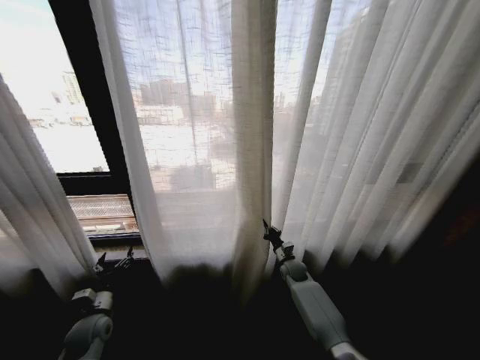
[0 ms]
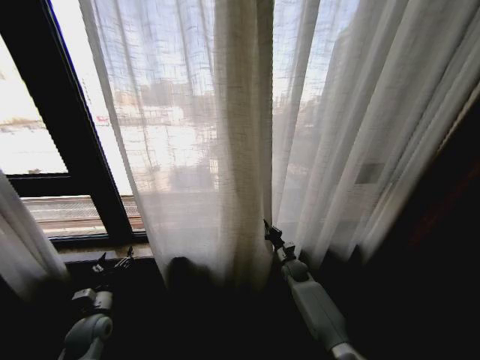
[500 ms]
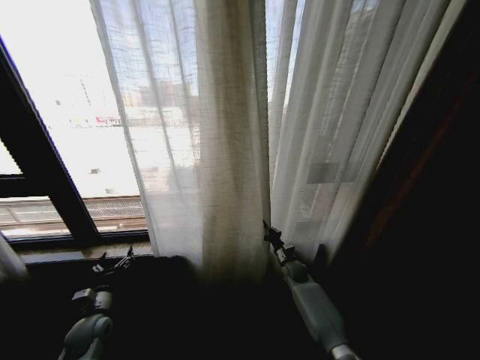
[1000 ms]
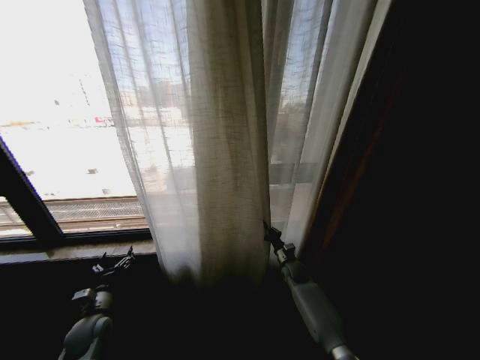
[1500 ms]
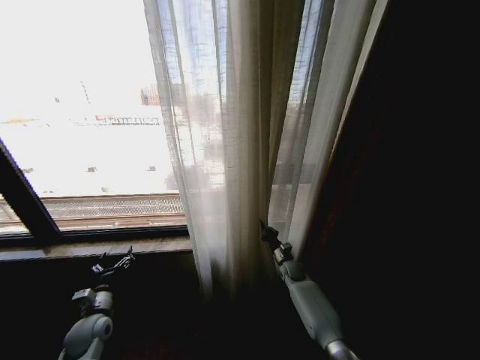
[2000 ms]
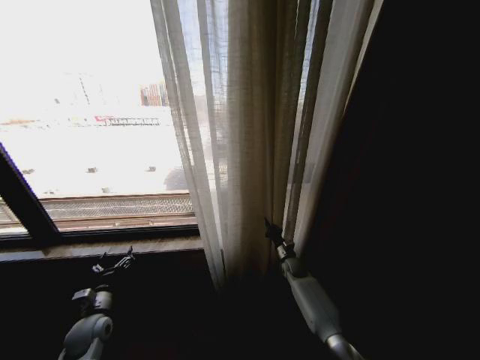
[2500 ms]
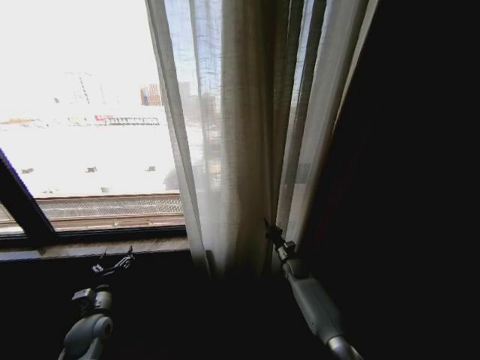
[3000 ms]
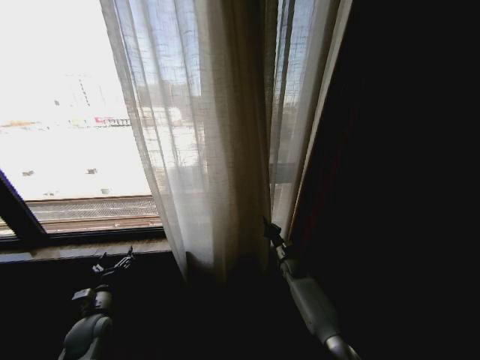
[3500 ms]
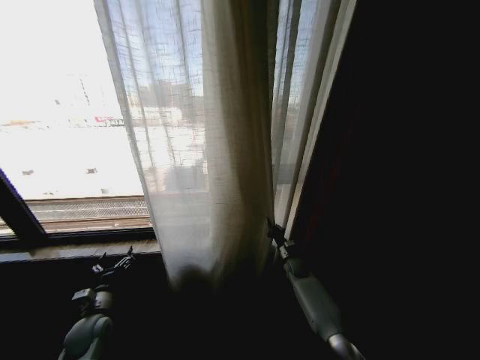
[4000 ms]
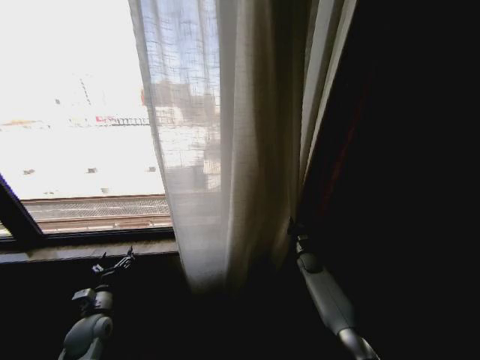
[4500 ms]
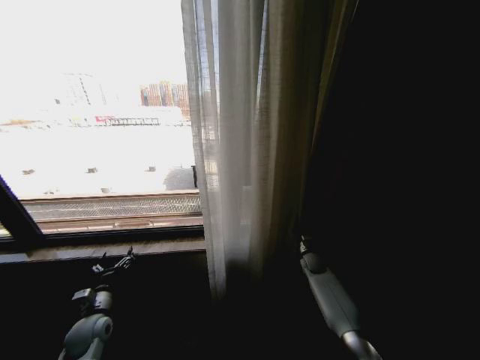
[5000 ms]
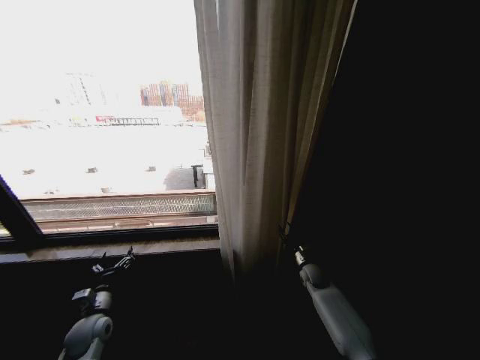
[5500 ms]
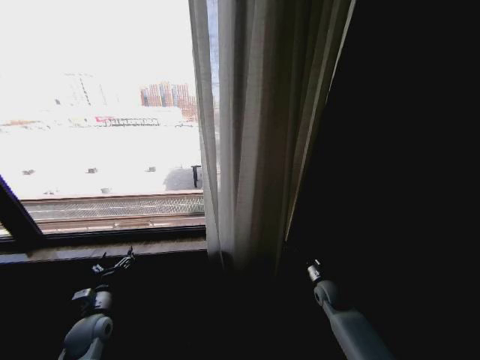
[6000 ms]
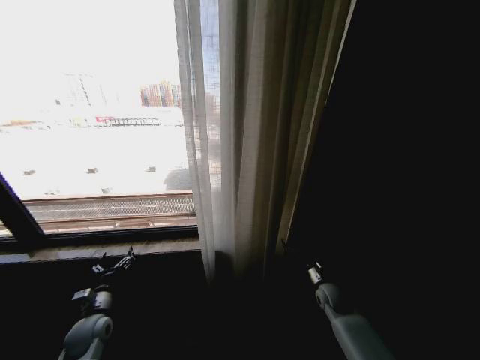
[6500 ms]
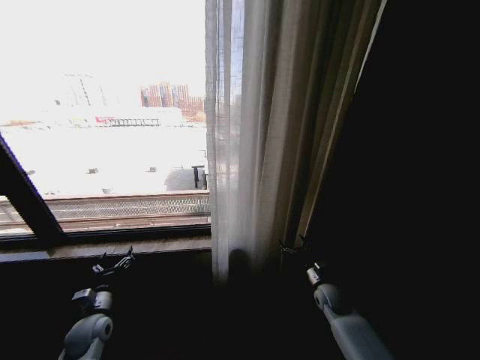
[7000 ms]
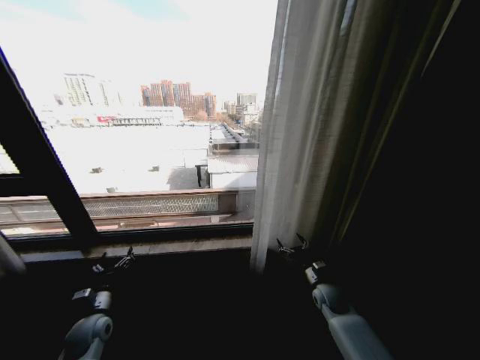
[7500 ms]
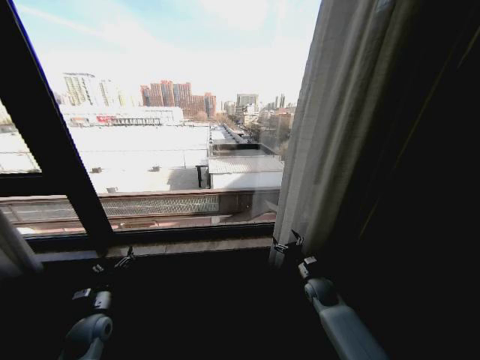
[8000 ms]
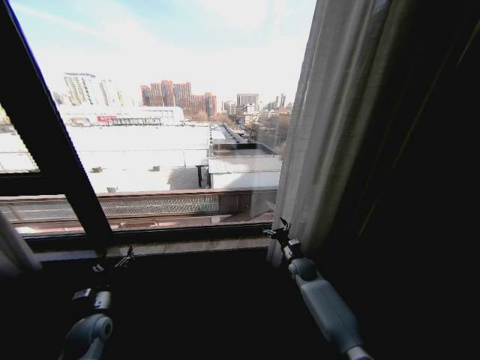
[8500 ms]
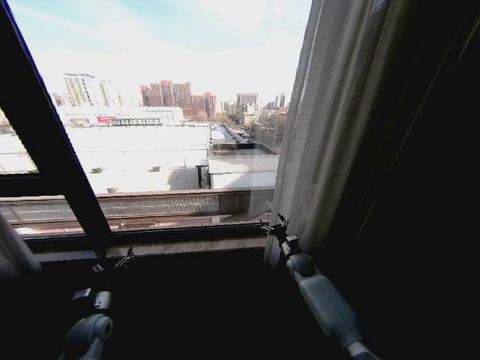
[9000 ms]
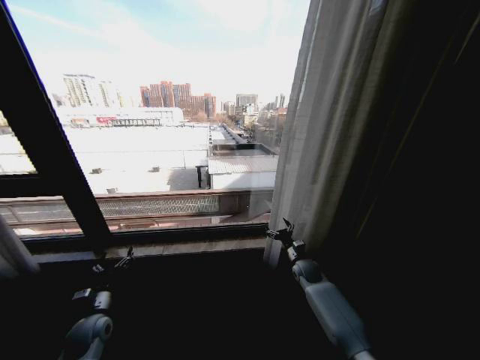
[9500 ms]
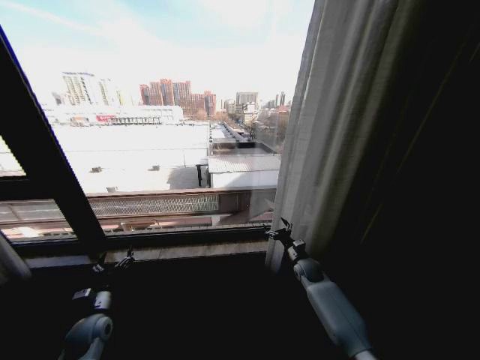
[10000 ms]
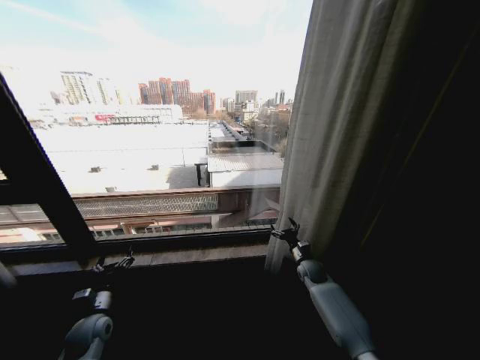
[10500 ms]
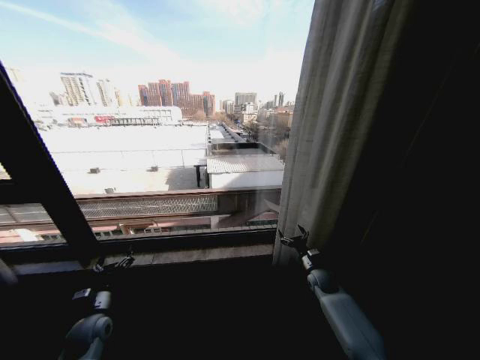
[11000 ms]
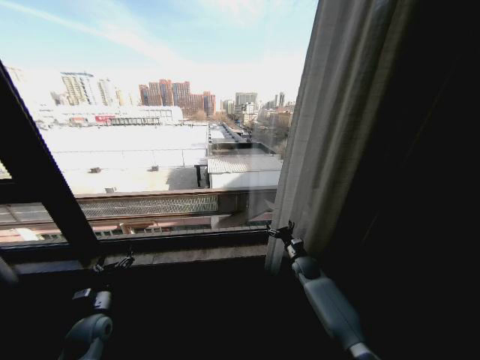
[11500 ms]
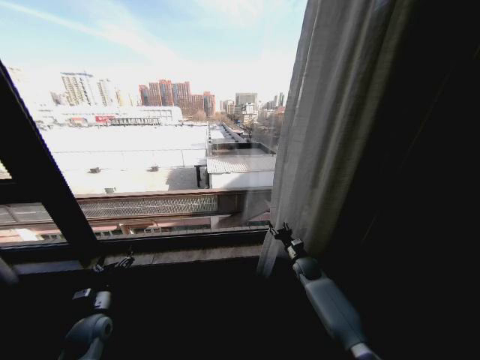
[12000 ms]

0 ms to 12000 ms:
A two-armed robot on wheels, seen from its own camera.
Task of the whole recording: Open the curtains by pulling them apart, changing their state from closed to fully open.
4000 ms to 6000 ms: The right gripper moves backward and to the right, approximately 15 cm, and opens its fingers.
8000 ms to 10000 ms: The right gripper travels forward by roughly 5 cm.
10000 ms to 12000 ms: The right gripper closes its fingers.

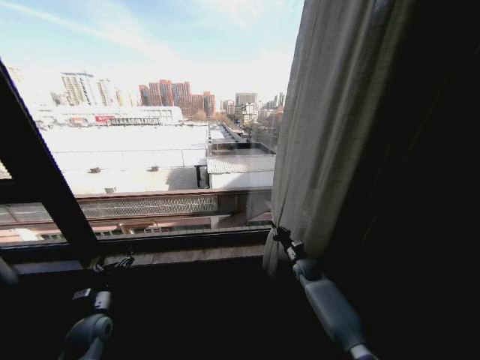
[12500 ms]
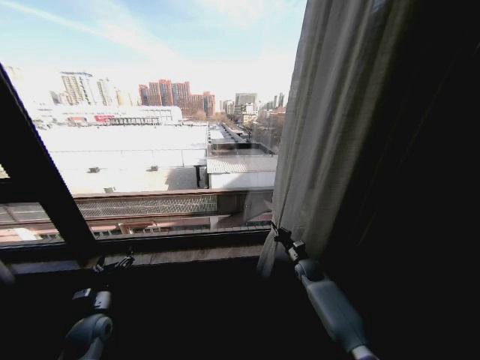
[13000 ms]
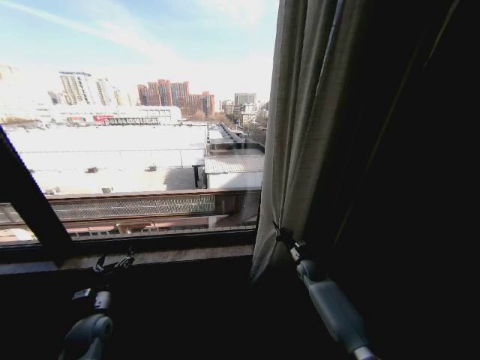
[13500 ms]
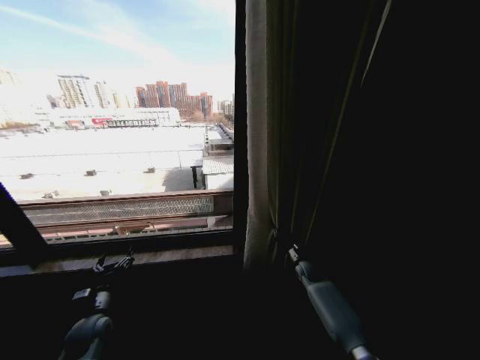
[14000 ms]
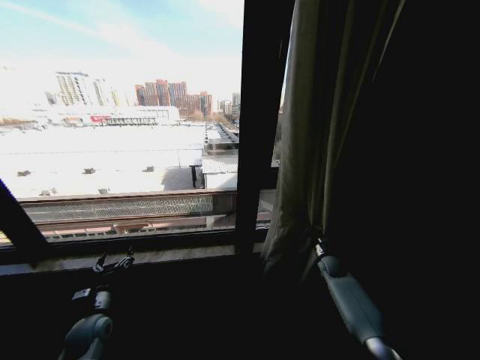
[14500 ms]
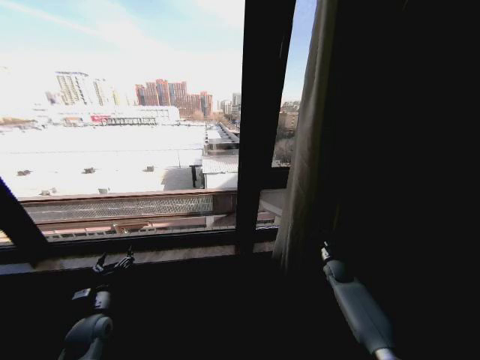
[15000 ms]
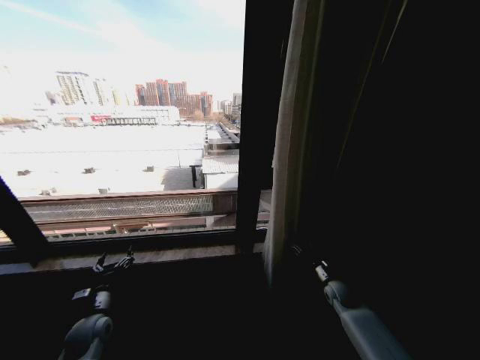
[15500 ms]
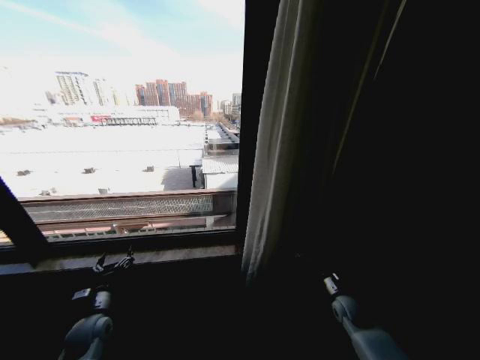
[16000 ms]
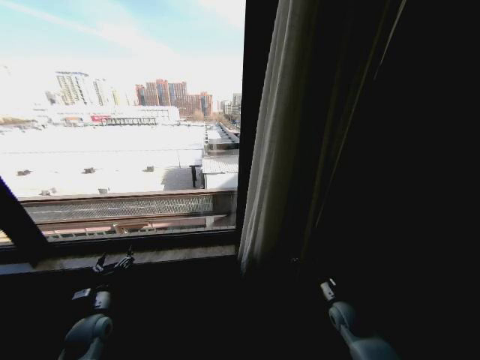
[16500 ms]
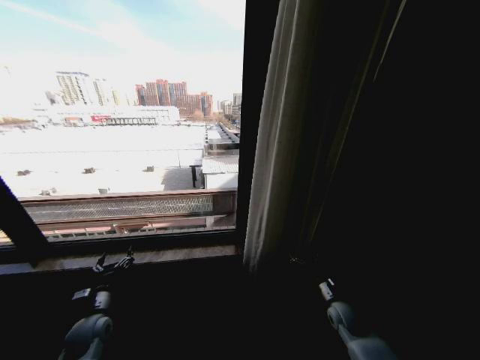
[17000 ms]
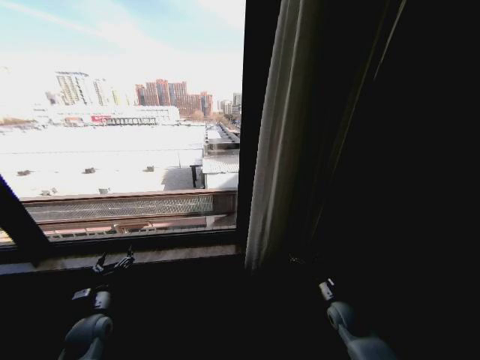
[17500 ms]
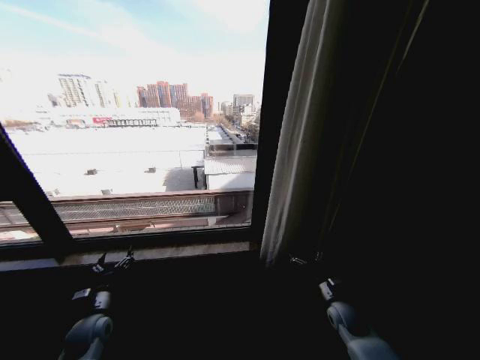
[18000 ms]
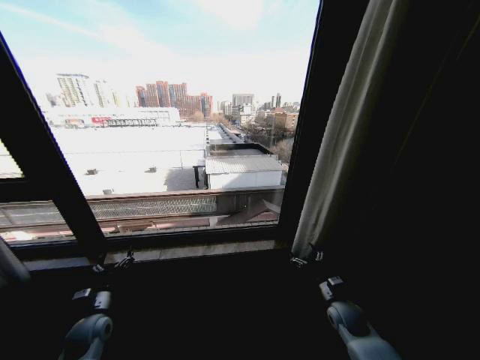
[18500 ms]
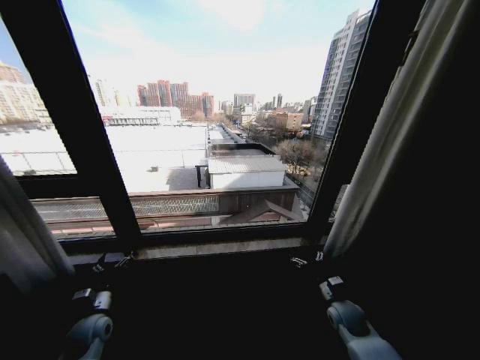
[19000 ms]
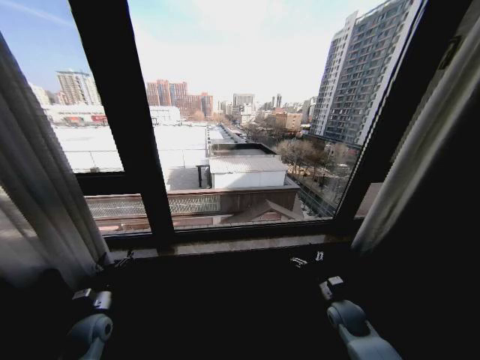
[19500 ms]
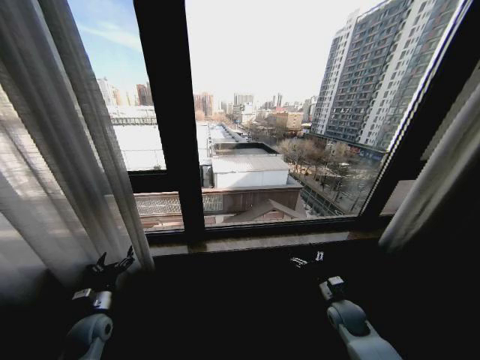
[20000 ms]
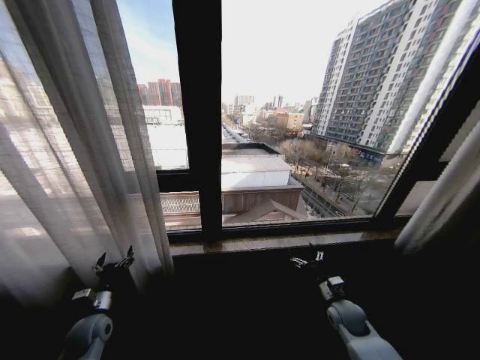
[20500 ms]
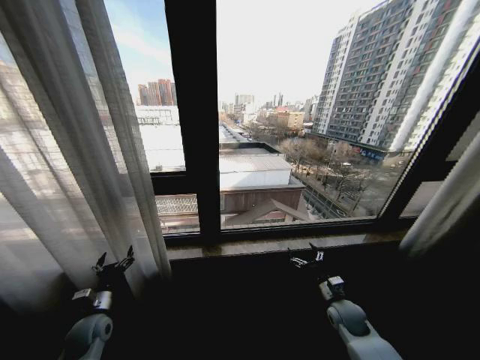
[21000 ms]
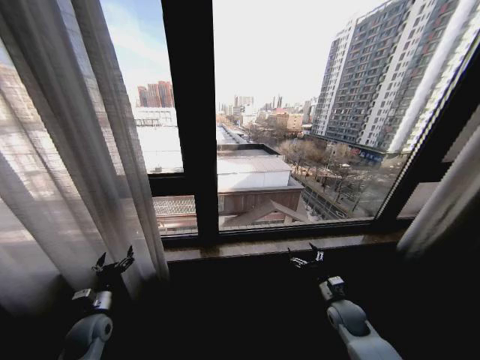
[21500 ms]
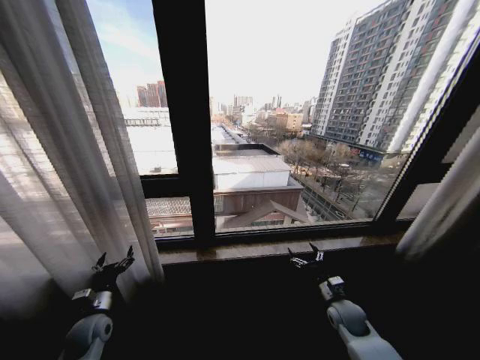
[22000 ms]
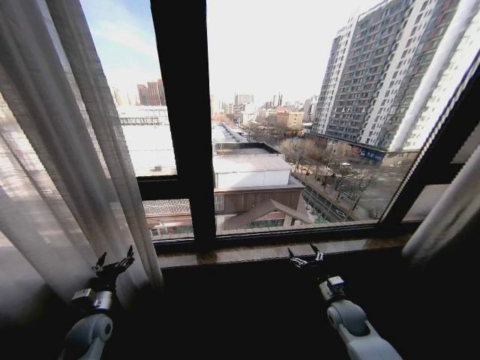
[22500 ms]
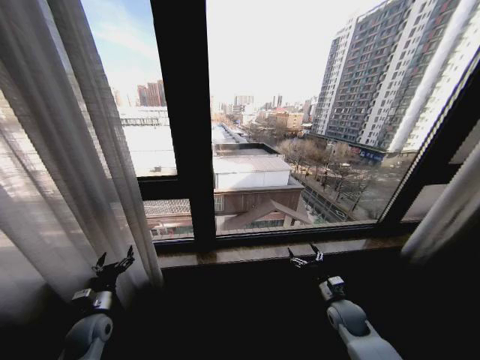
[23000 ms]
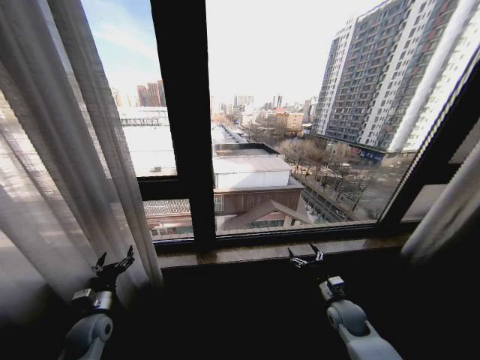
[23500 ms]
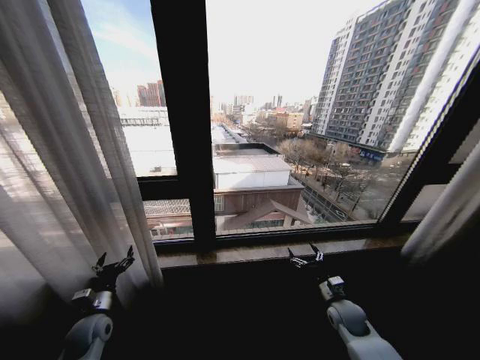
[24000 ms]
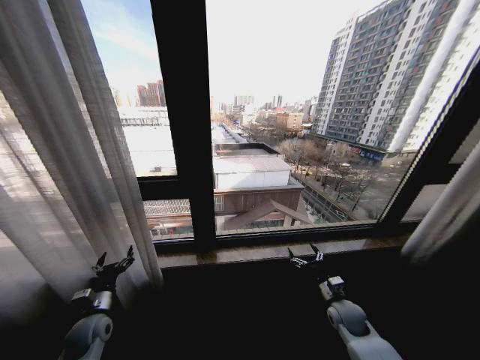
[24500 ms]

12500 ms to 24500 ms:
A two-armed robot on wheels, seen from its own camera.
Task of the whole recording: Open the curtains by pulling them apart, changing their state from closed to fully open.
12500 ms to 14500 ms: The right gripper shifts some 10 cm to the right.
14500 ms to 16500 ms: The right gripper is displaced backward by about 15 cm, and opens.
22500 ms to 24500 ms: Both grippers stay put.

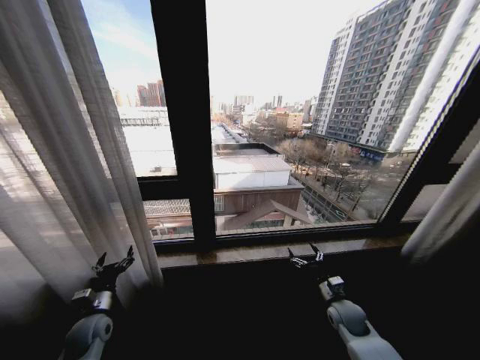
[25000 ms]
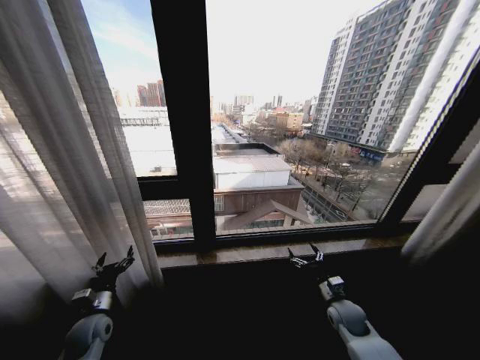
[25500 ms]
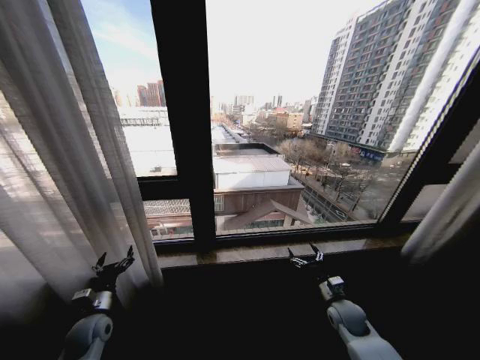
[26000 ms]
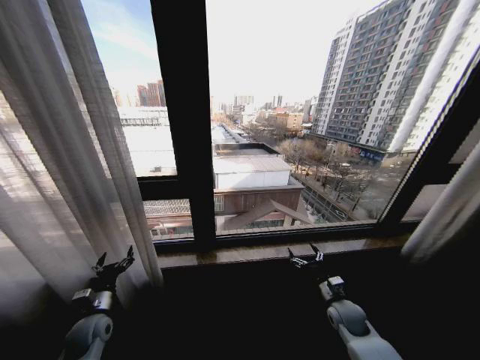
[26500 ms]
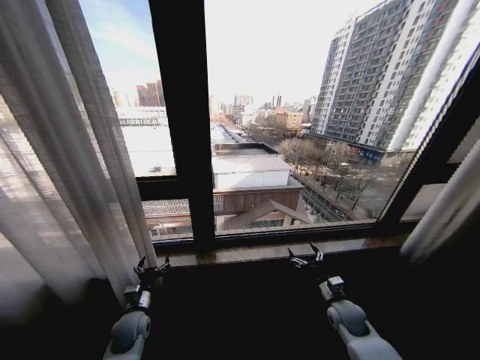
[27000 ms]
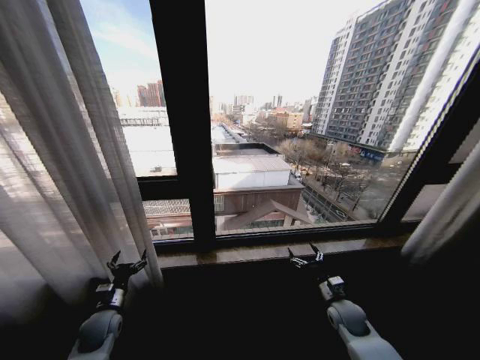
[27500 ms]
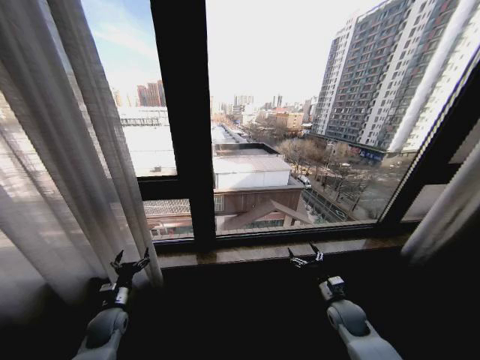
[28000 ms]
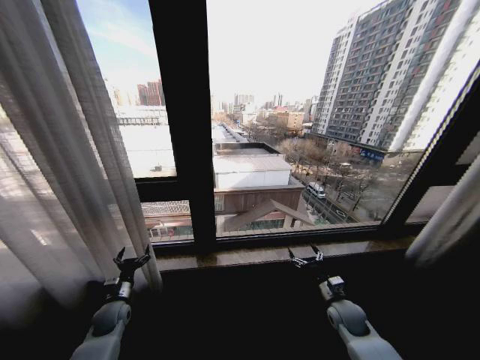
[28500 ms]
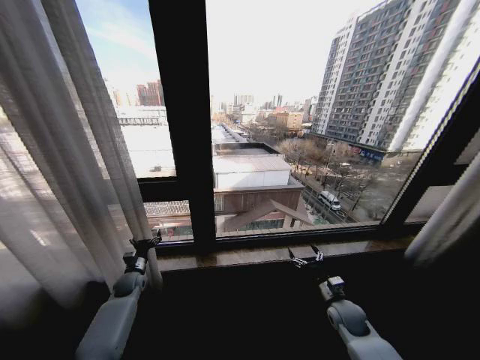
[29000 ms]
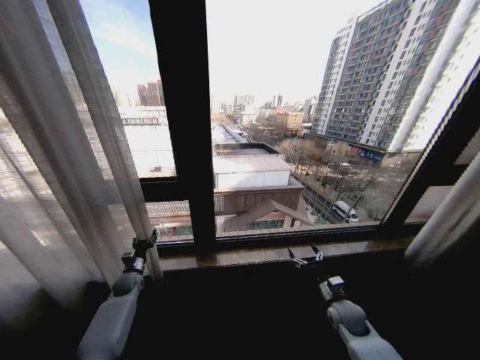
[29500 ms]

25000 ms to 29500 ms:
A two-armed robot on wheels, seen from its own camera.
Task of the whole recording: Open the curtains by pulling them apart, changing their state from closed to fully open.
25000 ms to 27000 ms: The left gripper moves to the right, some 10 cm.
27000 ms to 29500 ms: The left gripper is displaced forward and to the left by some 15 cm, and closes up.
